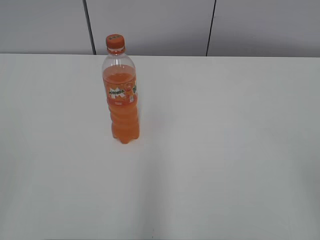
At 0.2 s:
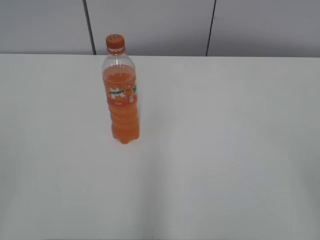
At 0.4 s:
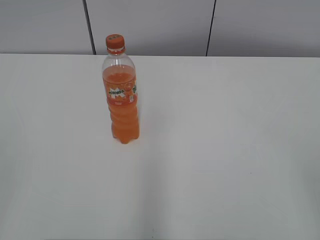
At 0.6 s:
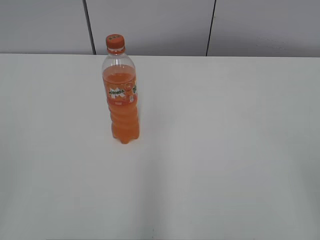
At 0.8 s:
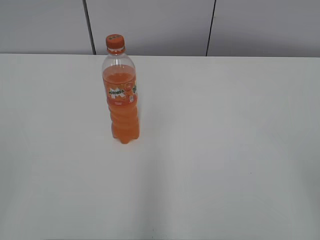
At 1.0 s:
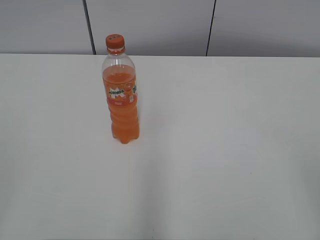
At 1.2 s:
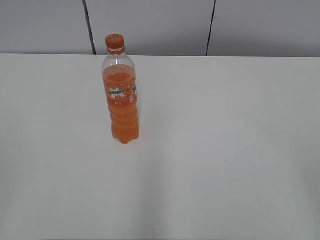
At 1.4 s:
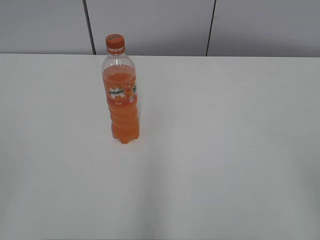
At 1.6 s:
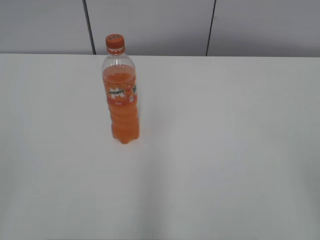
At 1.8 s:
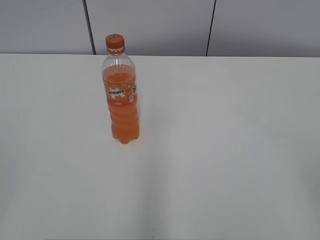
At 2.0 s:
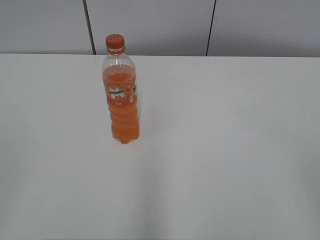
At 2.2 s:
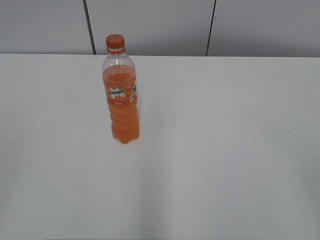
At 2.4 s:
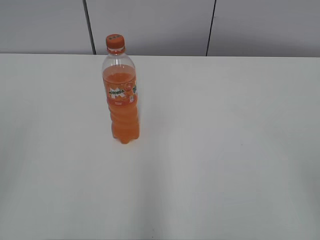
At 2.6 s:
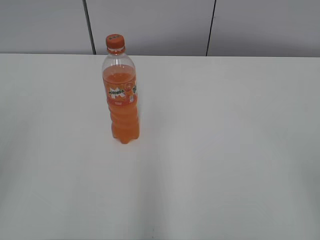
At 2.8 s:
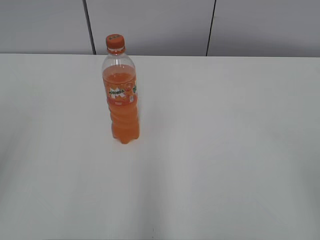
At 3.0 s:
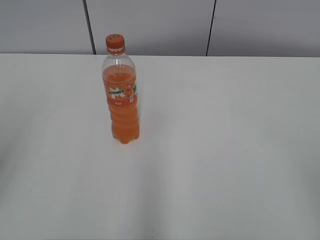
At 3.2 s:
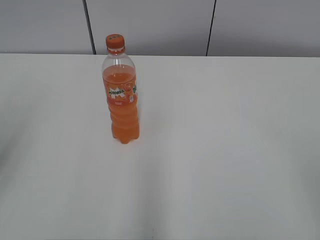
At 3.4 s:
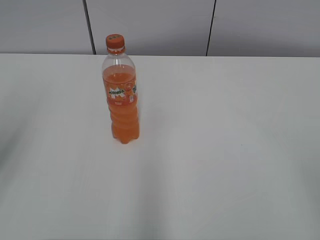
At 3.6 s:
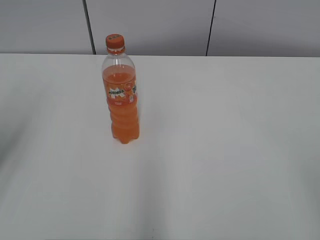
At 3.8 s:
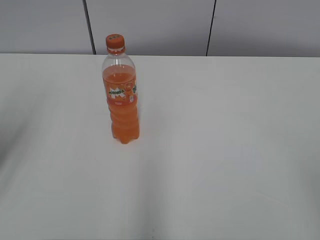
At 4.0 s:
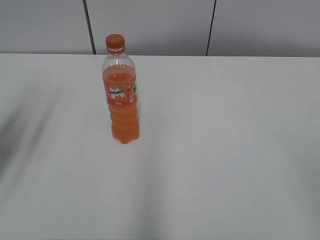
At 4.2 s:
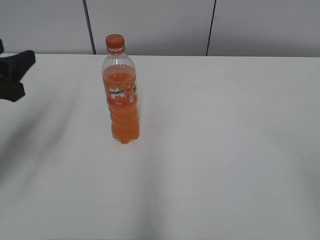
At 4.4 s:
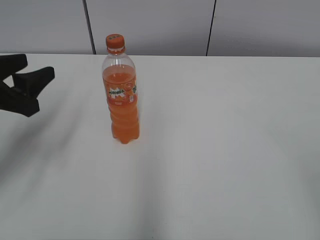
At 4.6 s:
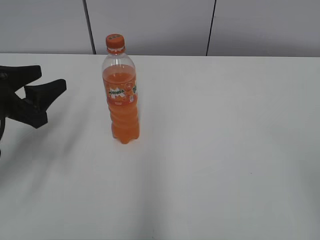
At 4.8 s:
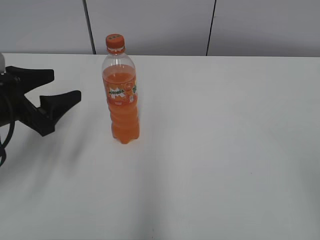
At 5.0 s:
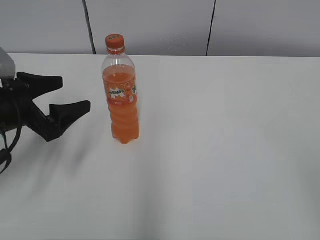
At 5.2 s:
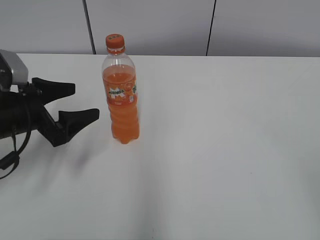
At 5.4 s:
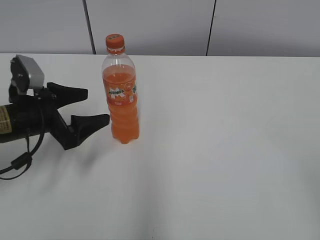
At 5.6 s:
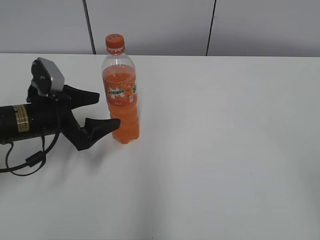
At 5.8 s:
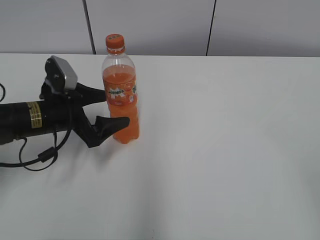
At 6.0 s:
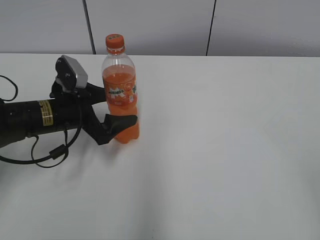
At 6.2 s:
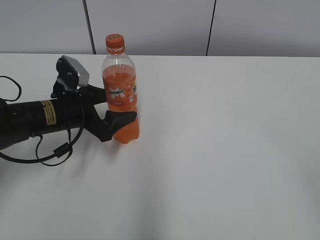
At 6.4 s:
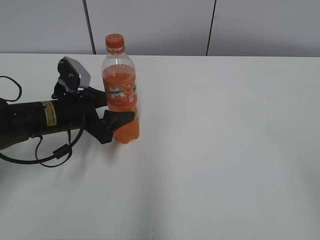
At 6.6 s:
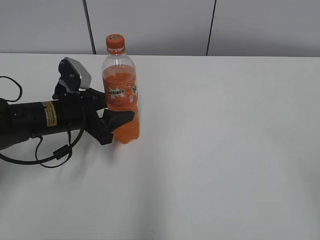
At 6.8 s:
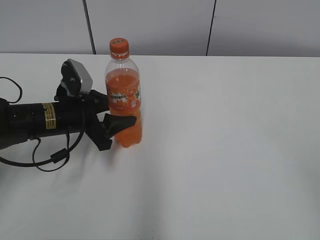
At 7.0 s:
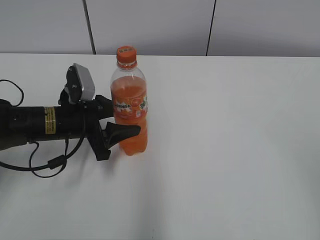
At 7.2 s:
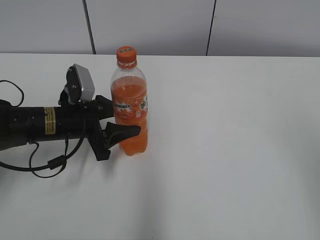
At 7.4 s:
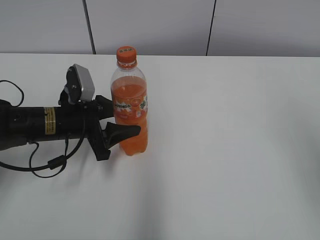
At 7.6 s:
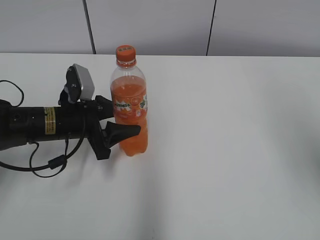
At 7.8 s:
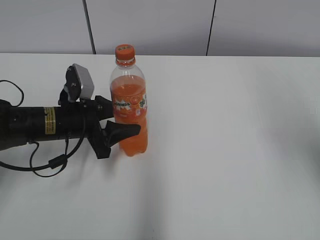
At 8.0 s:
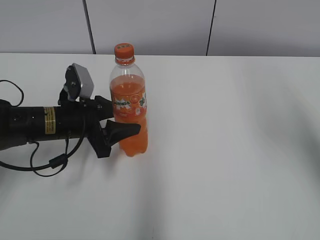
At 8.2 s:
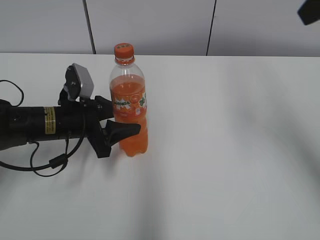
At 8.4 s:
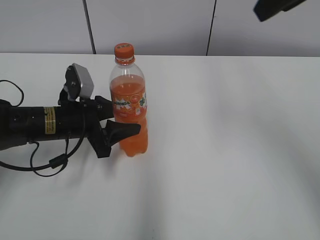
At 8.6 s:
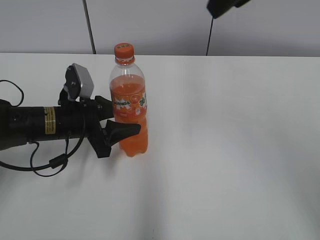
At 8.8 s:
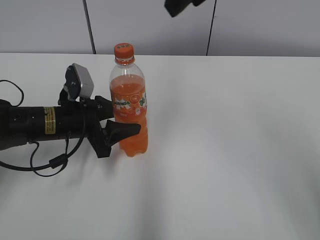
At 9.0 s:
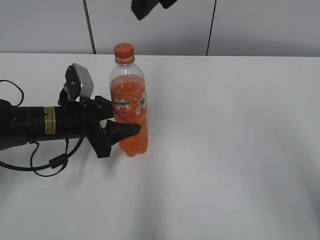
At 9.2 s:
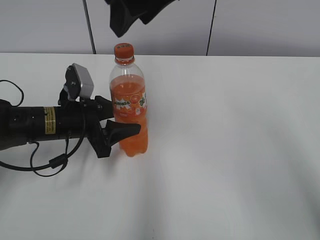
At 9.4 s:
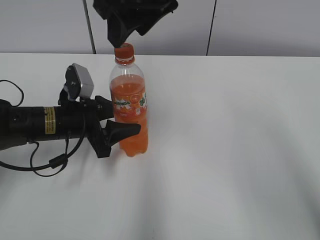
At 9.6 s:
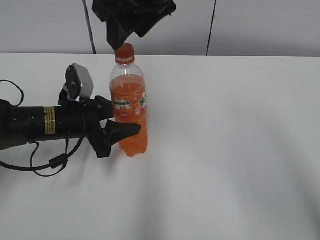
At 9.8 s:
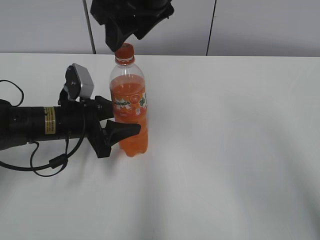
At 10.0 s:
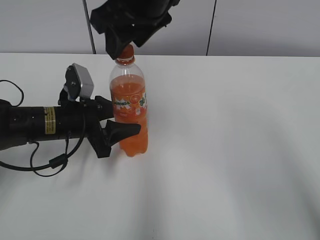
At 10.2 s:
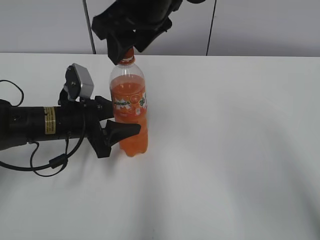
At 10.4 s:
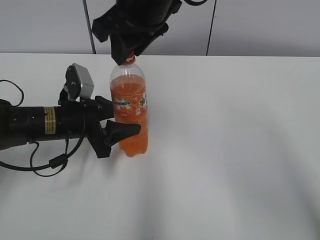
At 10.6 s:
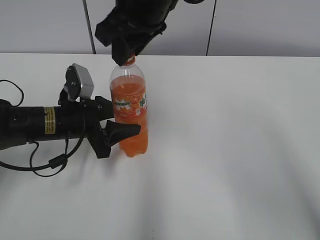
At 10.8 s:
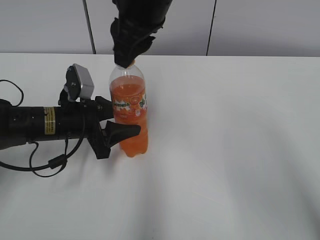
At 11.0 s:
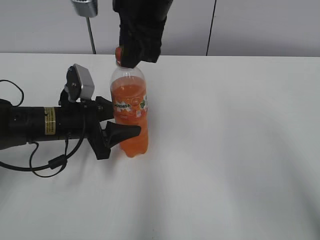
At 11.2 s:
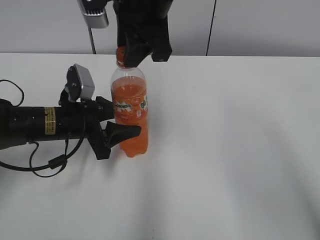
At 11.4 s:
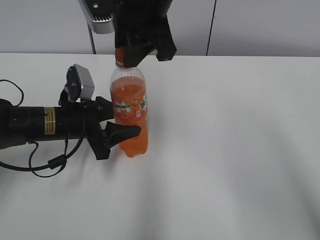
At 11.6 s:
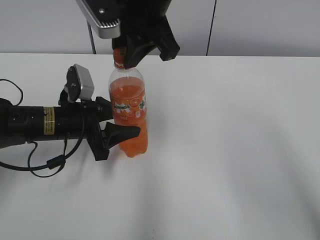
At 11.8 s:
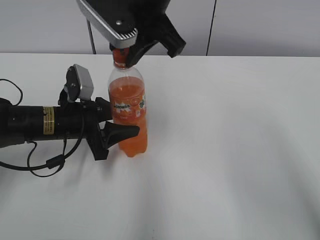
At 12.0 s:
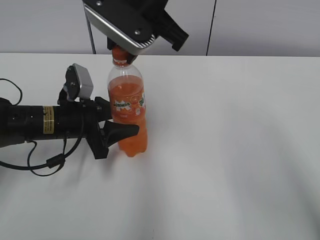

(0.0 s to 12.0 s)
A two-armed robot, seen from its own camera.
Step, 0.0 s - 6.6 s: Grab the Mirinda with the left hand.
Step, 6.8 s - 8.2 s: Move the Mirinda from left to right.
3.0 s - 4.4 s: The left gripper is displaced forward and downward by about 20 cm.
4.4 s - 6.0 s: The left gripper goes approximately 15 cm to the right, downward and forward, and opens.
6.0 s - 7.6 s: The left gripper closes its fingers. Meanwhile the right gripper heads forward and upward, covering roughly 20 cm.
7.6 s - 9.0 s: The right gripper shifts roughly 30 cm to the left and forward.
9.0 s - 10.4 s: The right gripper shifts about 5 cm downward, and closes up.

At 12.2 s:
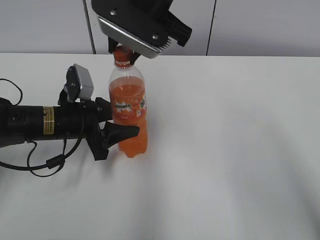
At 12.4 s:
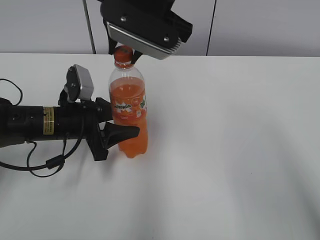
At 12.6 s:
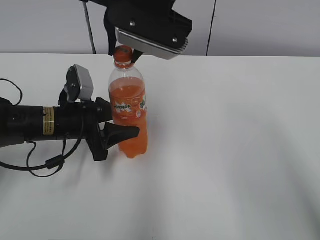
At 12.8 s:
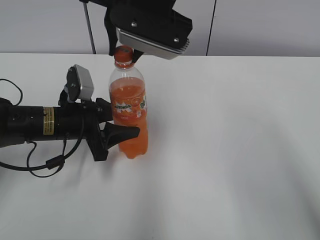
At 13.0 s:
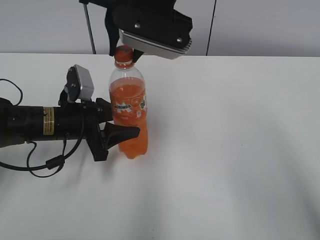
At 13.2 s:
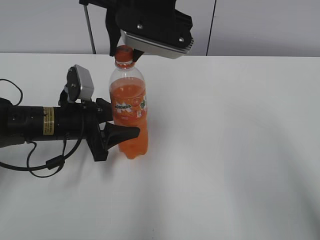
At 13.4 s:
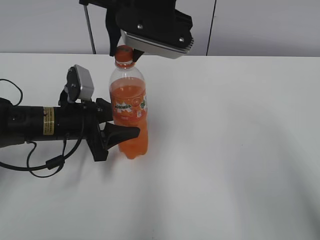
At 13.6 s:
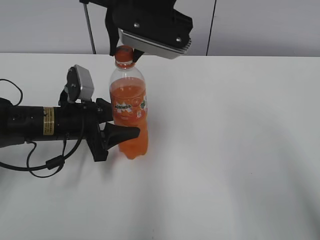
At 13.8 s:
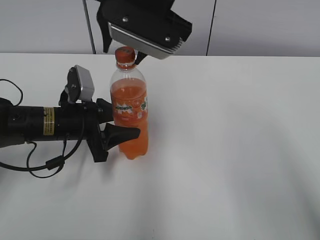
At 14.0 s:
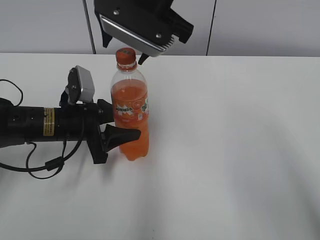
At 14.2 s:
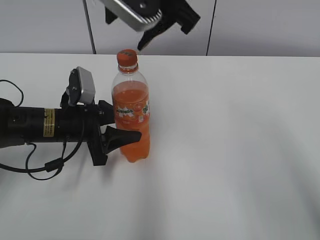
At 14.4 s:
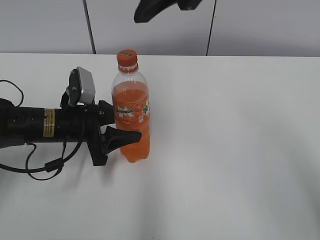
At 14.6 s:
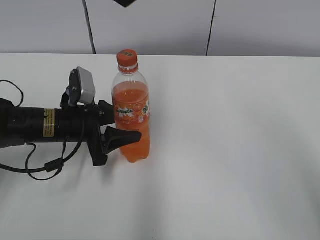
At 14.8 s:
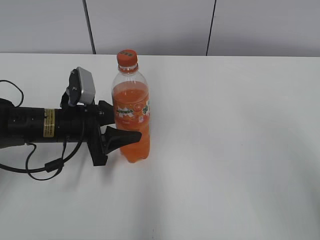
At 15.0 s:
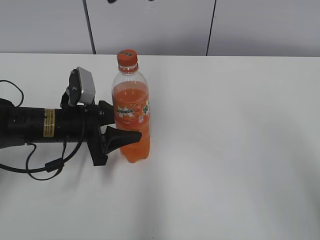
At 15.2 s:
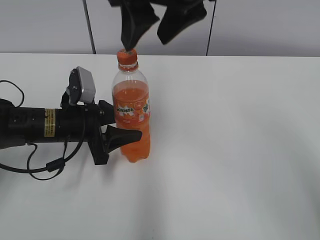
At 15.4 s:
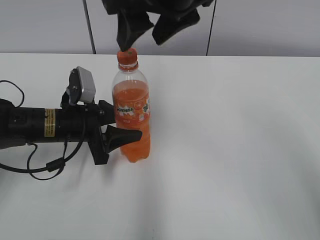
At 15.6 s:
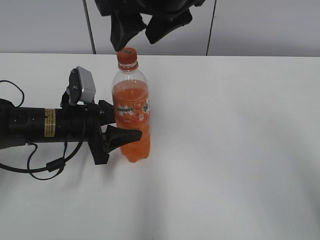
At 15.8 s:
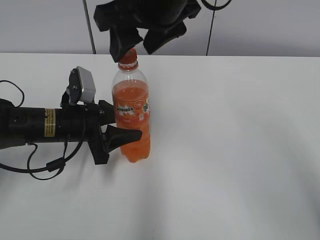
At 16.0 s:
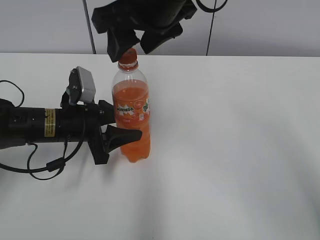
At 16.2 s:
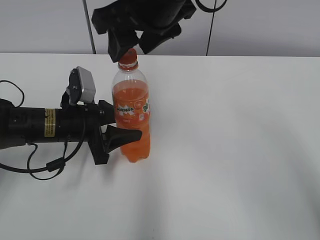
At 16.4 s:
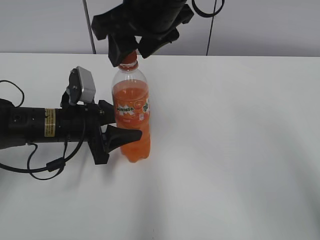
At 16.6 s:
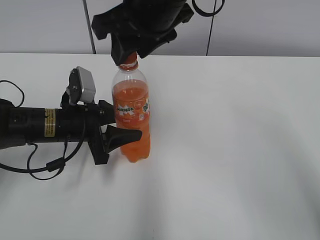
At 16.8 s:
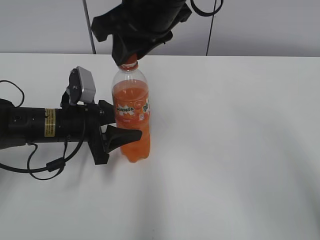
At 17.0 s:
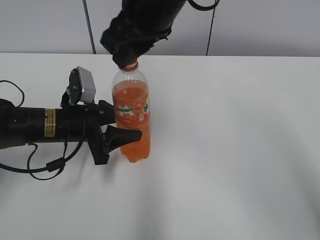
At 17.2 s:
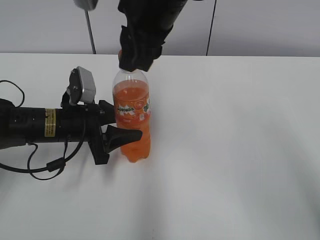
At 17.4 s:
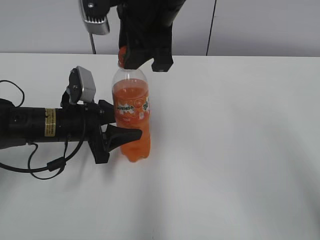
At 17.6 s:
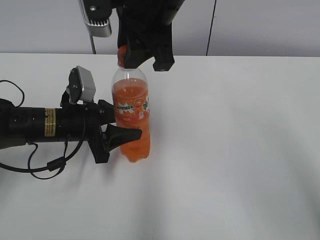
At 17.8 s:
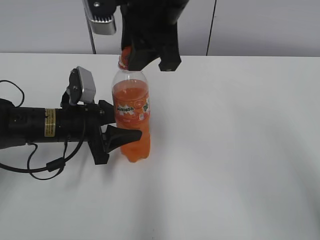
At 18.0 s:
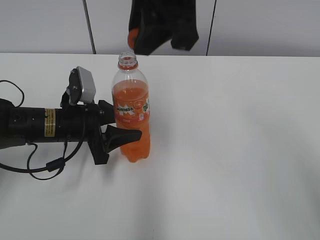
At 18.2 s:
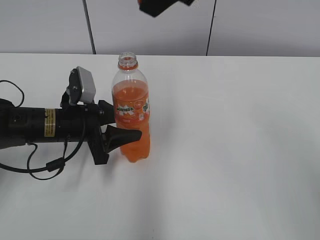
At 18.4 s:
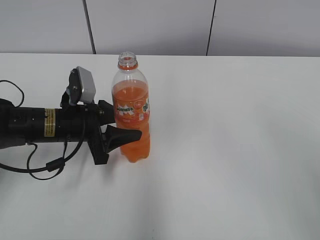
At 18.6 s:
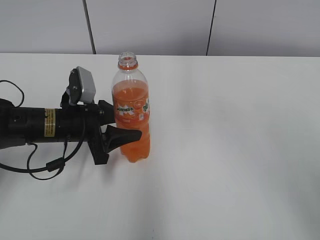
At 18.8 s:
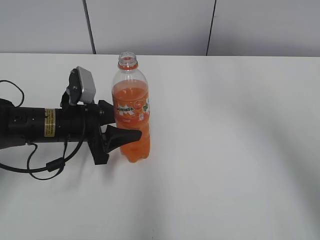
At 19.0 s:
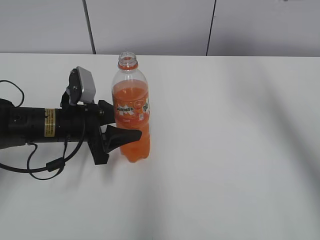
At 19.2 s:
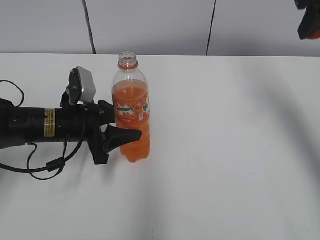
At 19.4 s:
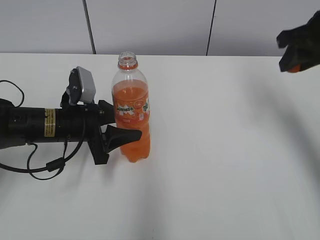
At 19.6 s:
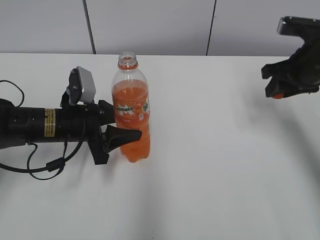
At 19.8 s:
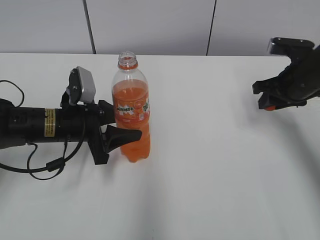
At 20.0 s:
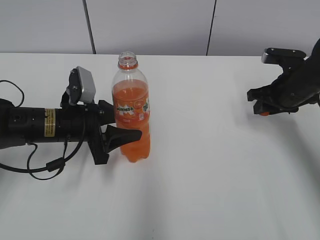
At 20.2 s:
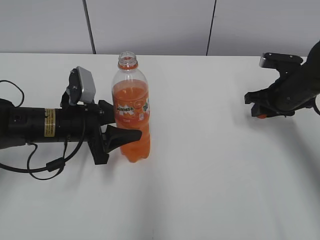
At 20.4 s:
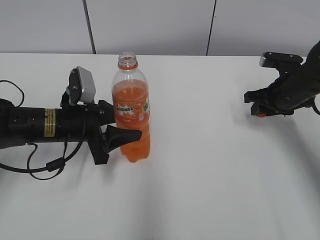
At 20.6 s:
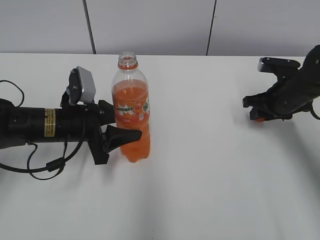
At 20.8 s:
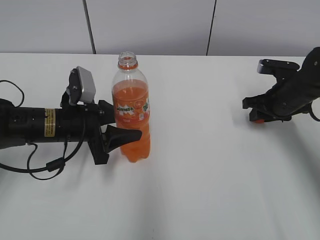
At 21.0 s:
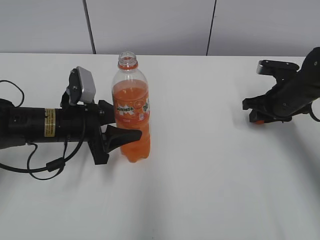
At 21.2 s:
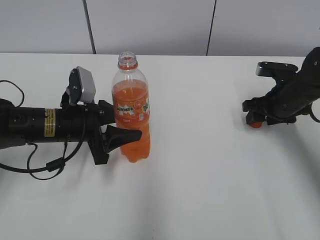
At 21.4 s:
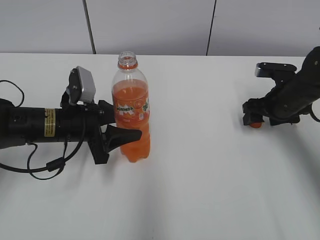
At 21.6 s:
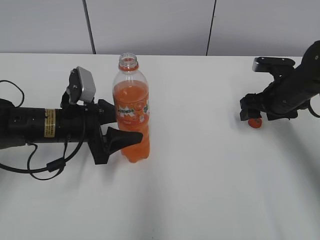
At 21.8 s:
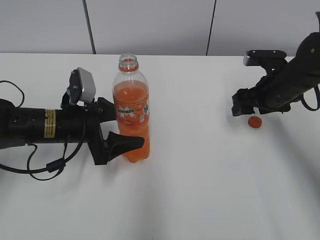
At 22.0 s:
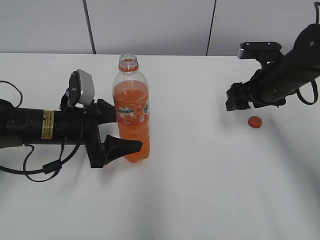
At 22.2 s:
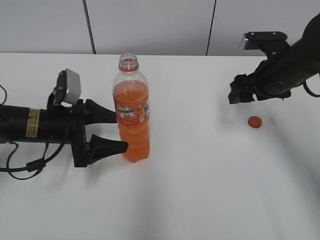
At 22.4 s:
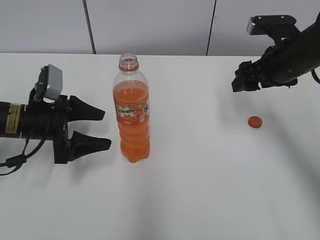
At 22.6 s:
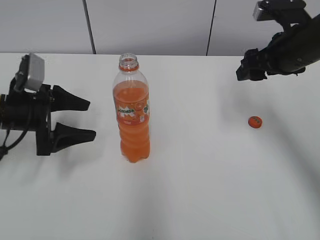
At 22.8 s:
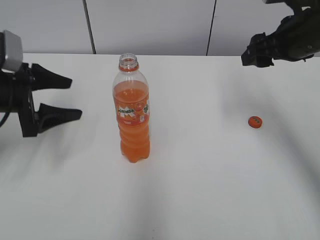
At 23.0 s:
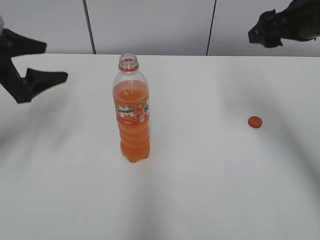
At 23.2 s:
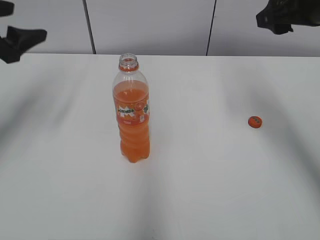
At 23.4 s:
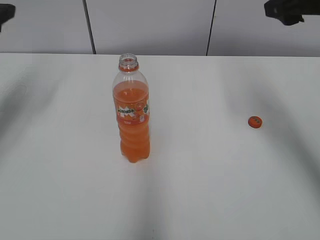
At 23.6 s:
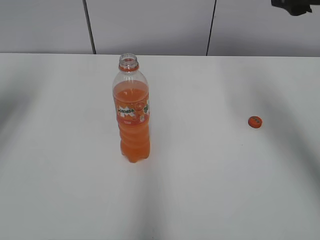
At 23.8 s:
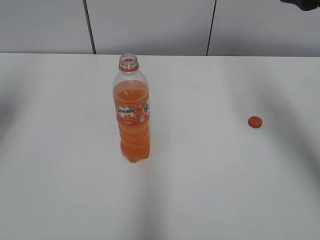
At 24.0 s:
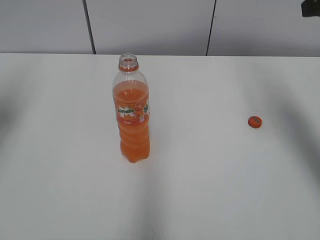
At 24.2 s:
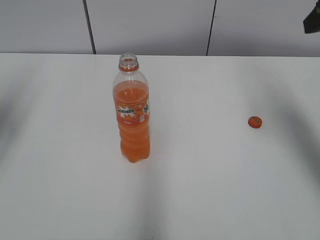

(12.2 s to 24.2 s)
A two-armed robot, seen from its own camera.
Step, 18.0 s - 21.6 s: Place the bottle cap on the right.
Step, 21.8 s - 22.2 s: Place the Mirinda with the left hand.
12.2 s - 13.8 s: The right gripper opens up.
13.8 s - 15.2 s: The right gripper reaches some 10 cm upward, then returns.
15.2 s - 16.6 s: The right gripper closes.
16.6 s - 18.2 s: The right gripper shifts about 10 cm upward.
18.2 s - 19.8 s: The right gripper heads downward, to the right and forward, covering about 35 cm.
19.8 s - 21.2 s: The right gripper shifts approximately 5 cm downward, and opens its fingers.
21.2 s - 22.6 s: The right gripper goes about 15 cm upward, and opens up. The left gripper moves to the left, approximately 10 cm, and opens its fingers.
22.6 s - 24.2 s: The right gripper shifts approximately 15 cm upward and backward. The left gripper goes some 20 cm upward and to the left.
